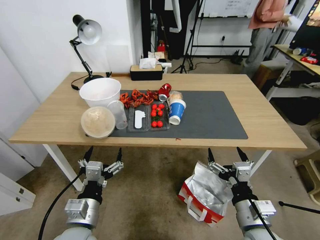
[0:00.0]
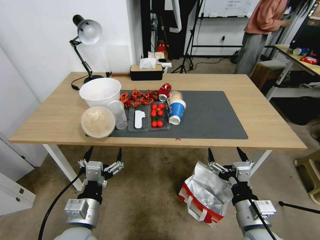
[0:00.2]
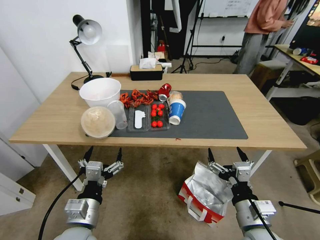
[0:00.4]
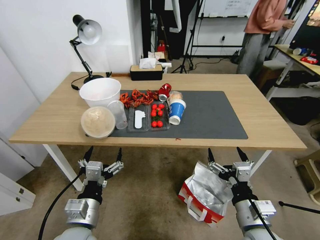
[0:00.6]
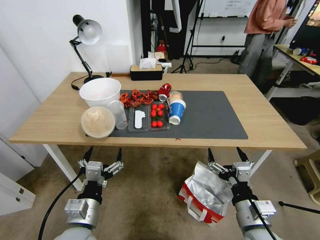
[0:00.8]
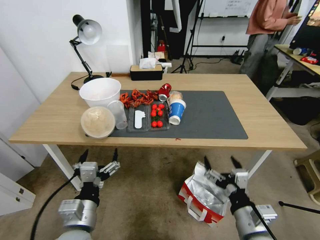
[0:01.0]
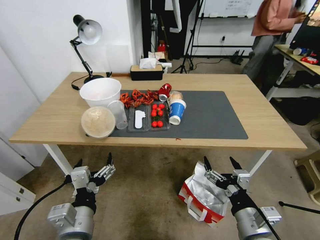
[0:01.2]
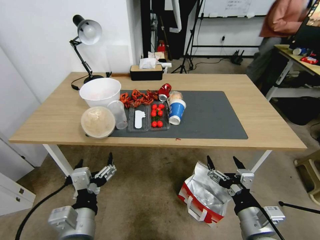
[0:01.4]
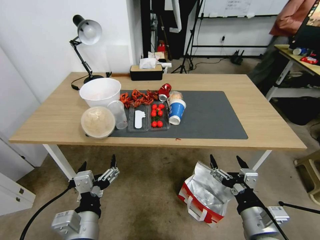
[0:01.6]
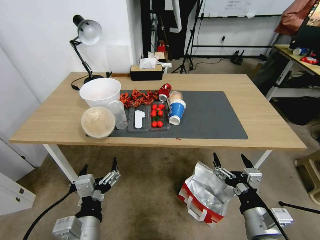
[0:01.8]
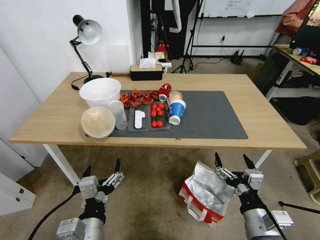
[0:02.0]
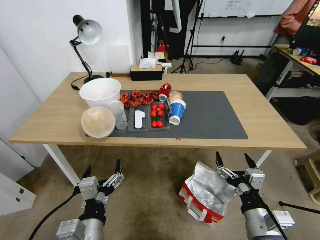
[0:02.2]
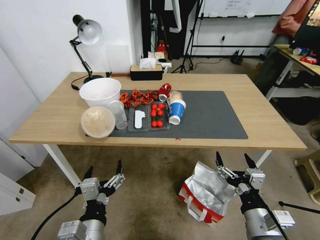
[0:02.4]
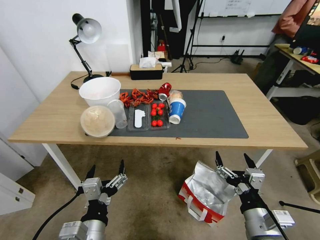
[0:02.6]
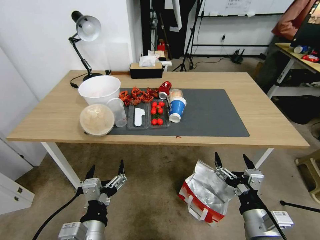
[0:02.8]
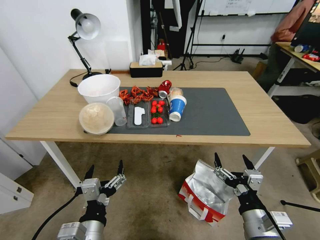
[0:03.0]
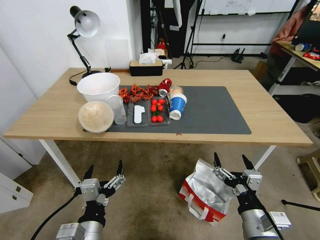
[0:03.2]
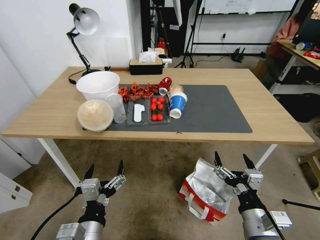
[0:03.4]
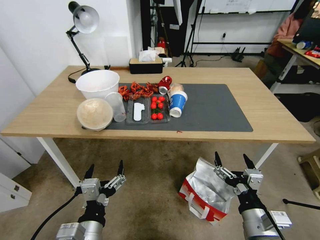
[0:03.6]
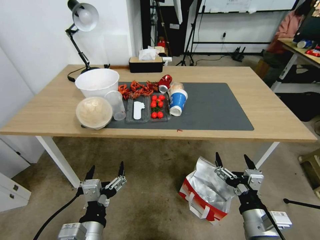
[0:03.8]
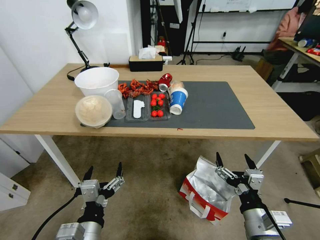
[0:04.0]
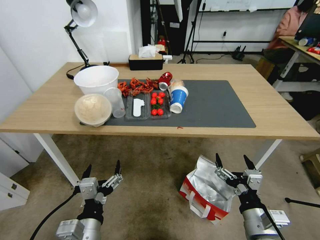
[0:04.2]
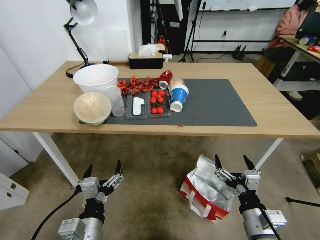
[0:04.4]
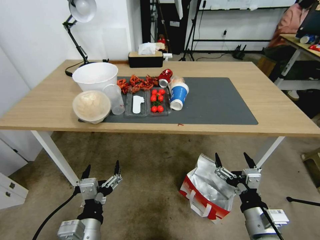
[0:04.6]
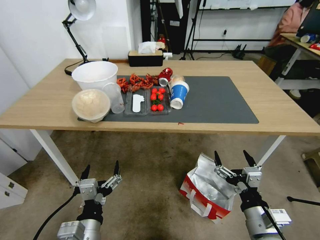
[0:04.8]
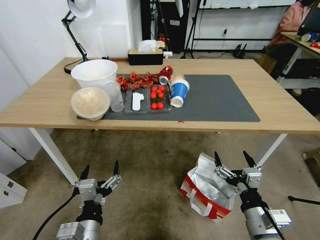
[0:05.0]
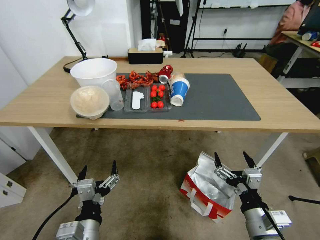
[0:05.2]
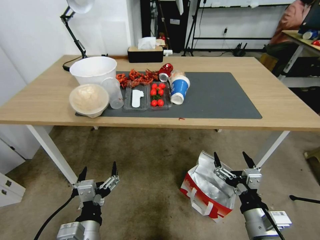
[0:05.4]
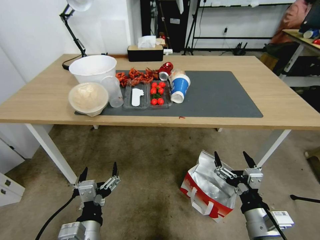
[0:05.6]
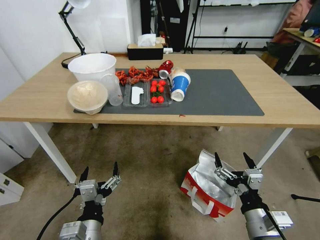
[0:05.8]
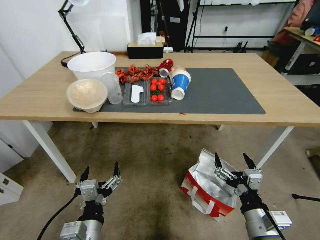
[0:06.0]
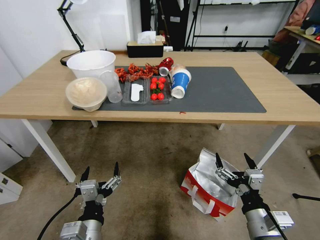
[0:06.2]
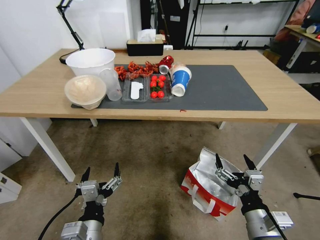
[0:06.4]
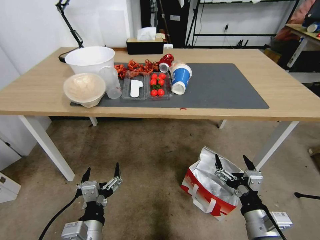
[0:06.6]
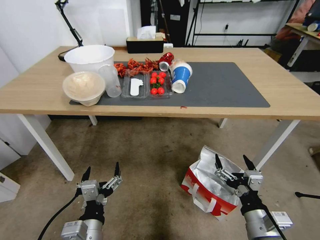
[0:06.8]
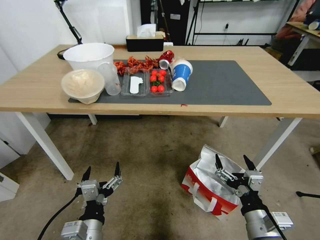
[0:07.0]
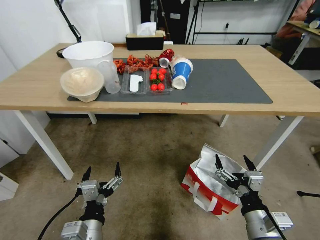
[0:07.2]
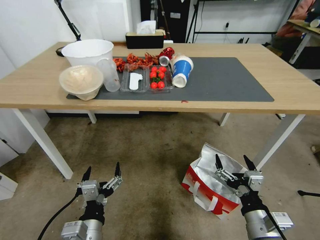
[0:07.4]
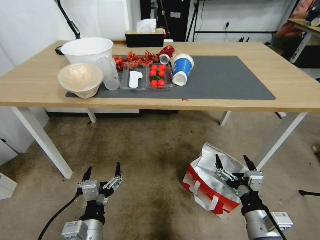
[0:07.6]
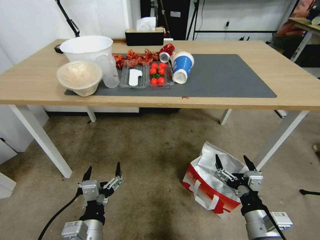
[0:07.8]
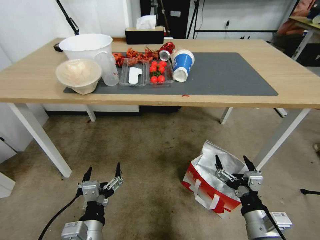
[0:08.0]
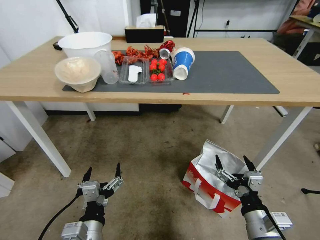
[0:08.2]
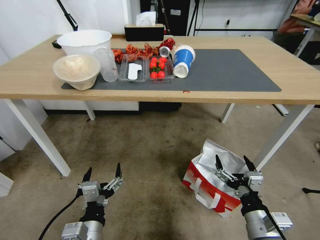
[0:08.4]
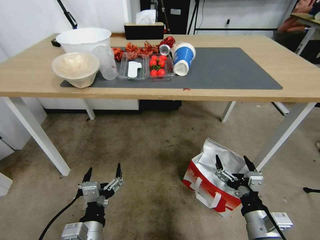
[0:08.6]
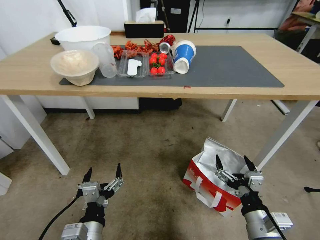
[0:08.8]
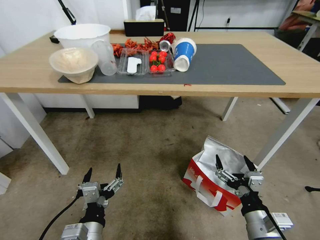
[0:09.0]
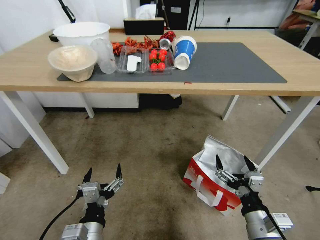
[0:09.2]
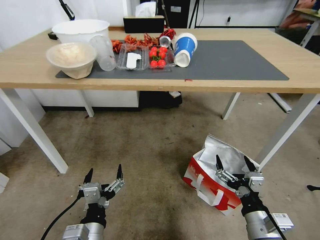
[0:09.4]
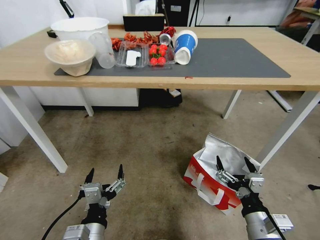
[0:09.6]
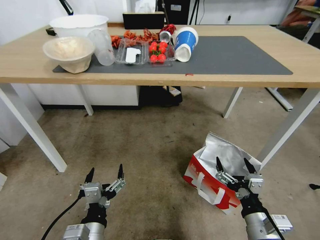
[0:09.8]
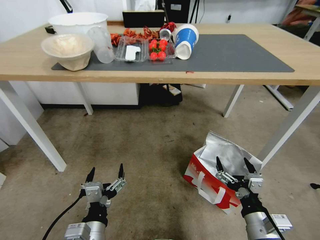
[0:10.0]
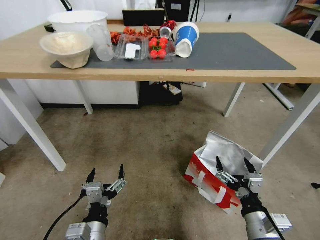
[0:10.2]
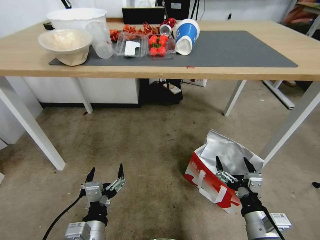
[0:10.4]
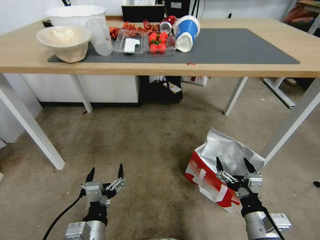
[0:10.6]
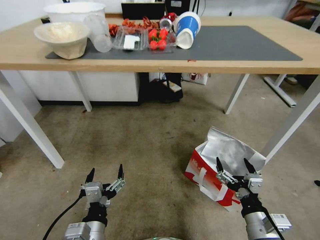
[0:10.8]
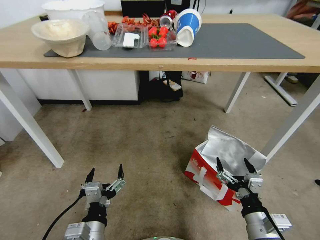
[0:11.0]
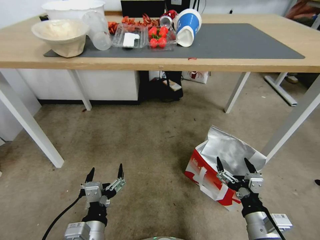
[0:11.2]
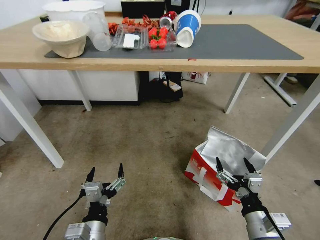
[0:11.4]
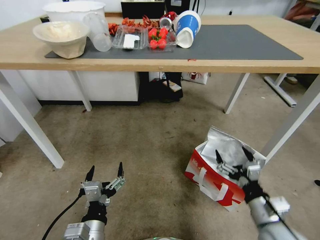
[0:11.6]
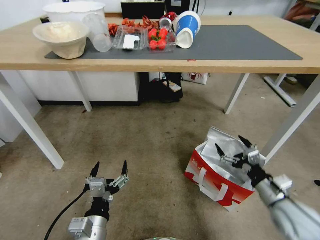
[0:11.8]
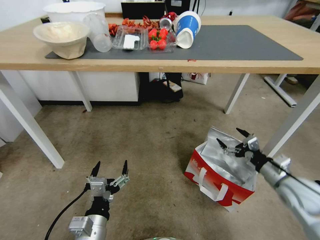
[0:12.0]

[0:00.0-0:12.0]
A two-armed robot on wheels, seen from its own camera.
Task of the whole recording: Pick up the food delivery bag from the floor and place it on the table.
0:10.4 to 0:12.0: The right gripper travels forward and to the right by approximately 20 cm.

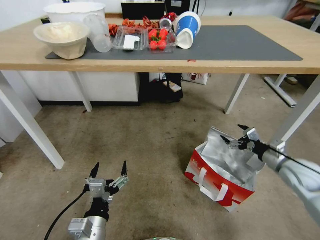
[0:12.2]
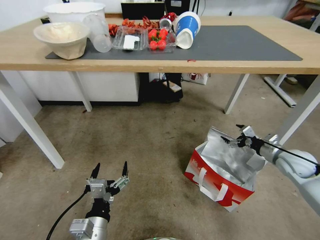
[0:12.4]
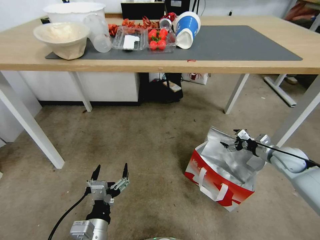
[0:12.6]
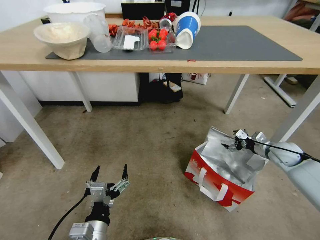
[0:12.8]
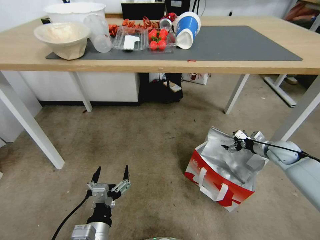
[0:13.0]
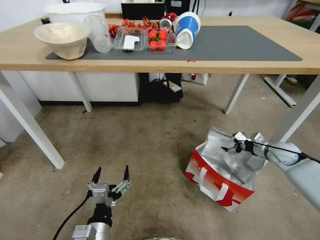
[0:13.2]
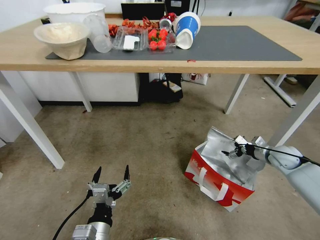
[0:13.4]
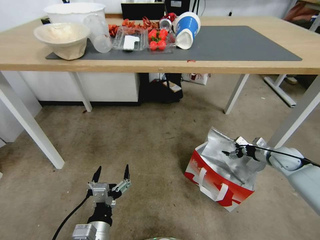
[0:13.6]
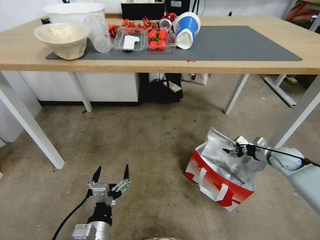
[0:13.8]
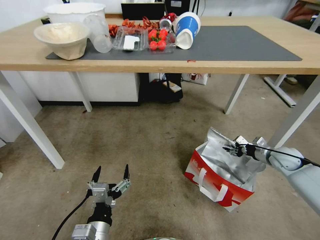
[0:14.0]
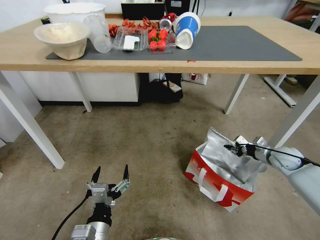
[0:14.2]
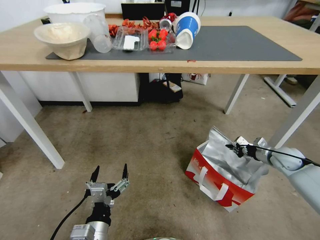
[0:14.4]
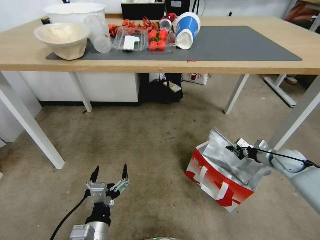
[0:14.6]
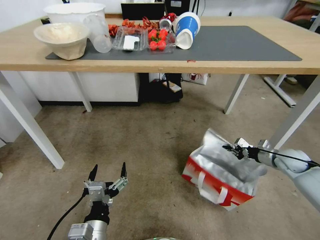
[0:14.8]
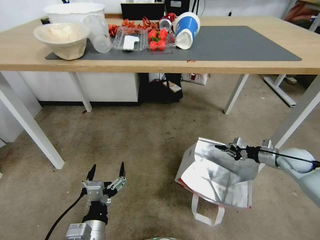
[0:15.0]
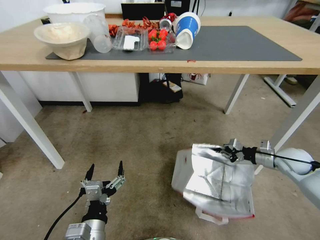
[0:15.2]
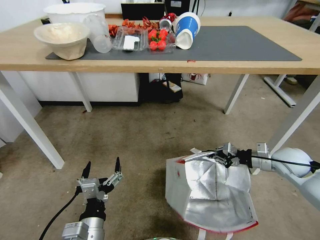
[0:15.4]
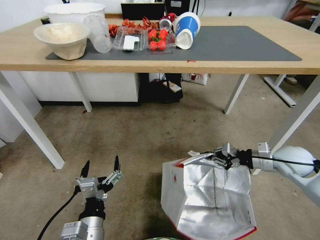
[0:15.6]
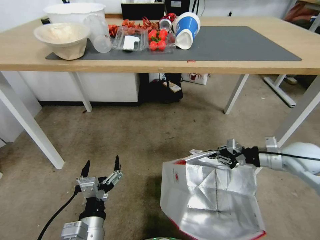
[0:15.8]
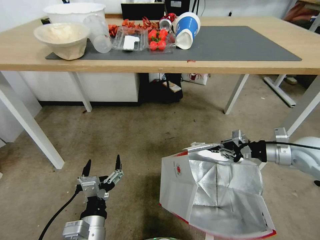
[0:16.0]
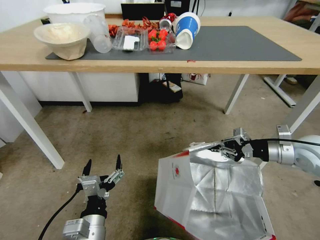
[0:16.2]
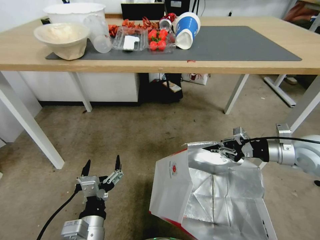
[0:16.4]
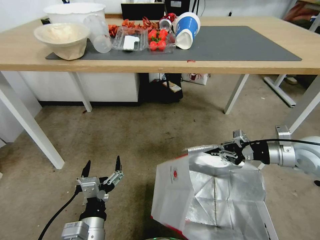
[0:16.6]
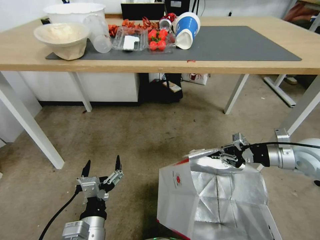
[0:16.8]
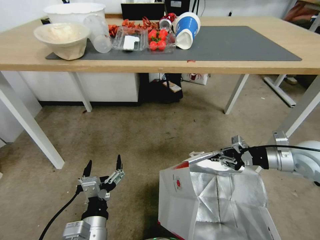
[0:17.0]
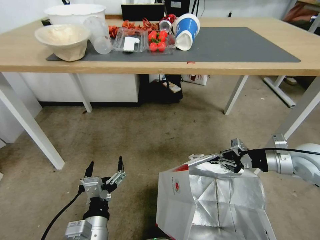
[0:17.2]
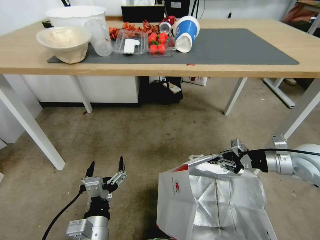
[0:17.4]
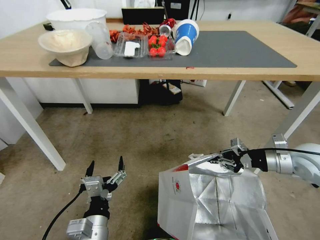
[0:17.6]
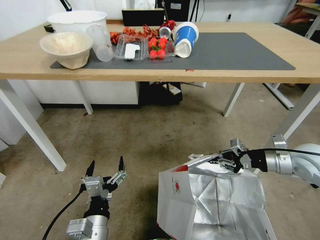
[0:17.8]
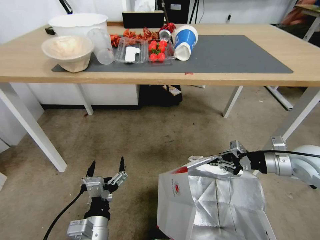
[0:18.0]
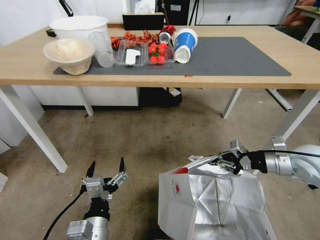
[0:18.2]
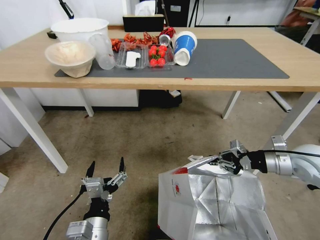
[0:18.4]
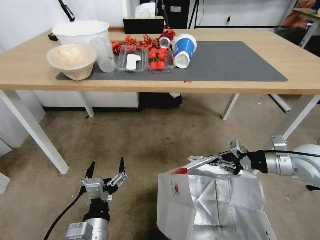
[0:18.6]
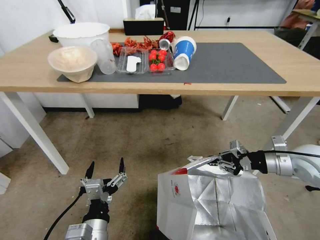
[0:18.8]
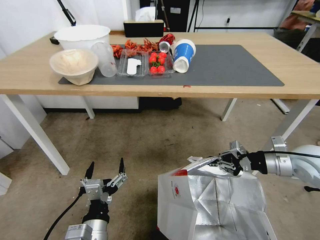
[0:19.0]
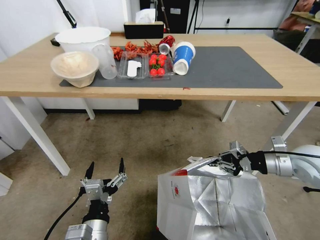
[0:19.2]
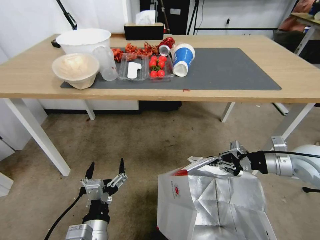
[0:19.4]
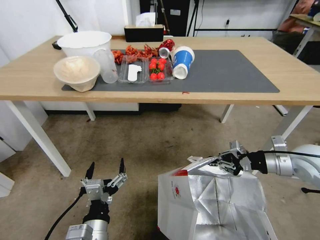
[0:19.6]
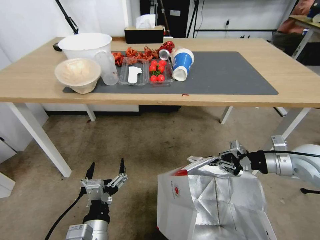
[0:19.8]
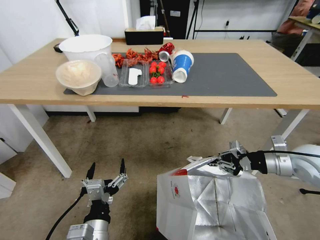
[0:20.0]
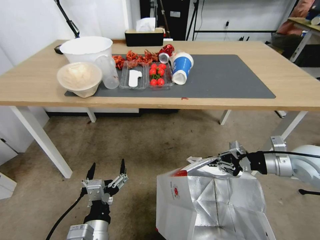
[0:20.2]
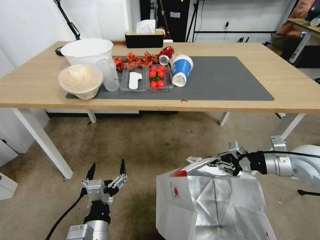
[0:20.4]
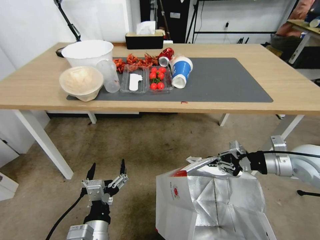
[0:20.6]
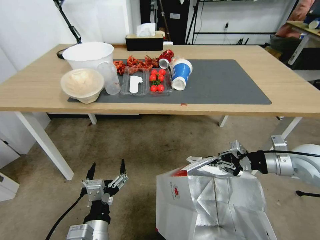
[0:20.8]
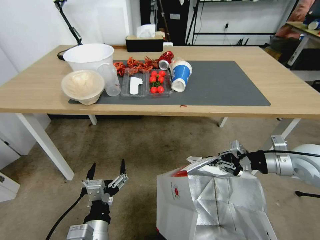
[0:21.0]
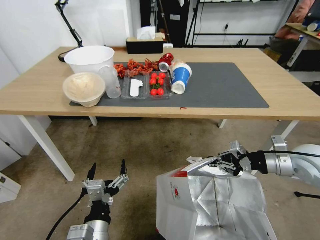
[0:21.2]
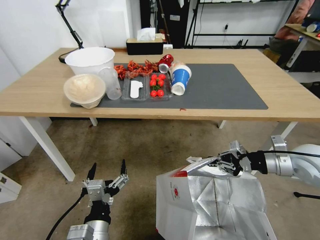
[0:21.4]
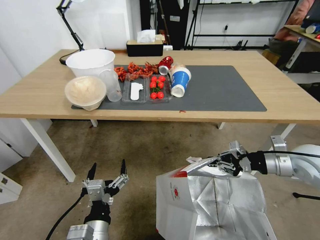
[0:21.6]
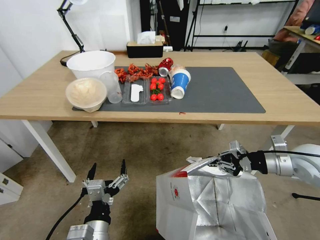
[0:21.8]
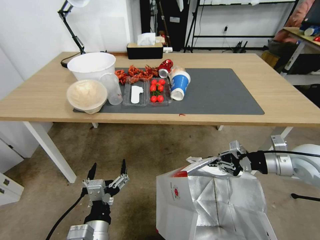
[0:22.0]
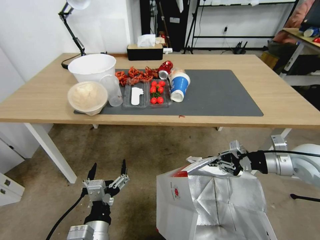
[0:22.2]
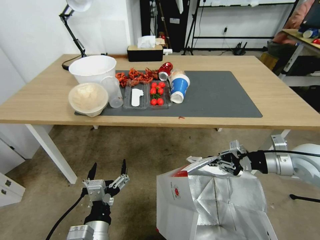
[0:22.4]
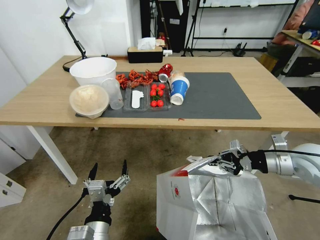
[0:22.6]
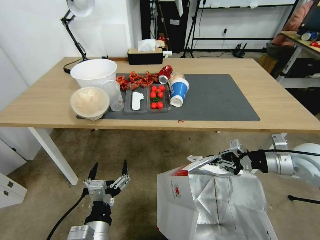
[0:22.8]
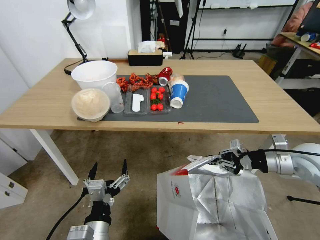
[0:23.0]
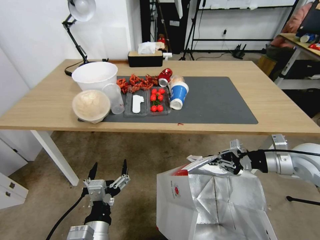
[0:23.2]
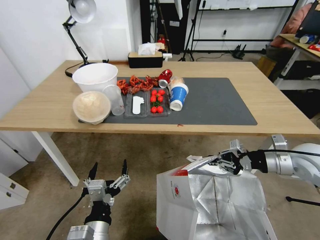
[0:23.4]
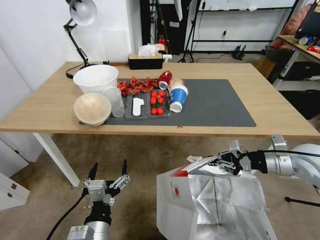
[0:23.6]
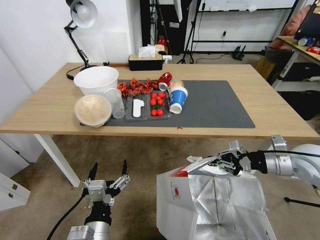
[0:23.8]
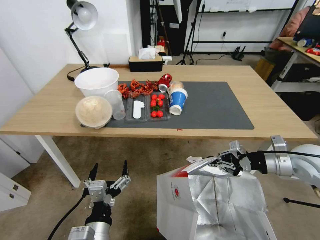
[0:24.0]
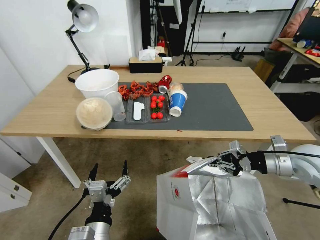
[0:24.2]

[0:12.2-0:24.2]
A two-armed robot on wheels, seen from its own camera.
Task of the whole recording: Pick up the food delivery bag from the floor and place it on the table.
0:12.2 to 0:13.8: The right gripper travels forward, downward and to the right by roughly 10 cm.
0:13.8 to 0:15.2: The right gripper moves some 5 cm, and closes.
0:15.2 to 0:16.6: The right gripper heads upward, covering roughly 15 cm.
